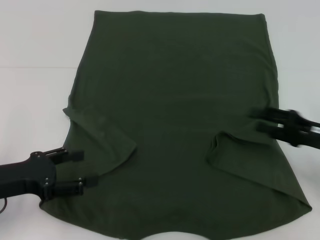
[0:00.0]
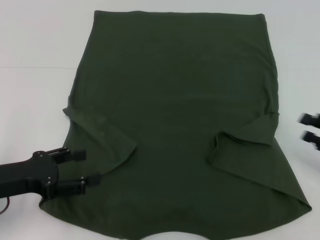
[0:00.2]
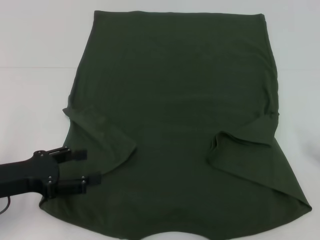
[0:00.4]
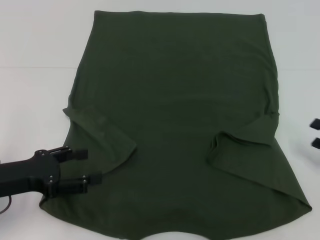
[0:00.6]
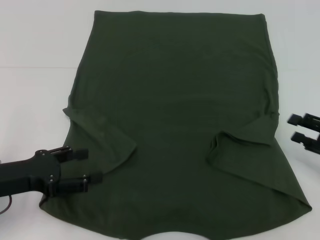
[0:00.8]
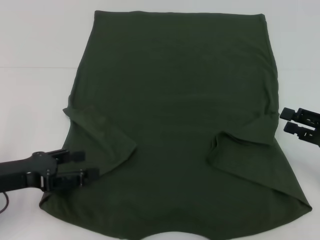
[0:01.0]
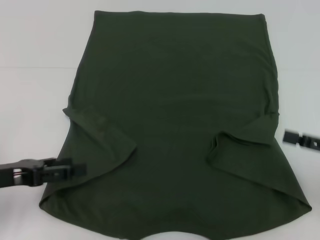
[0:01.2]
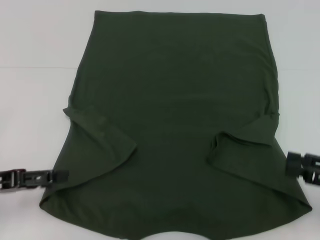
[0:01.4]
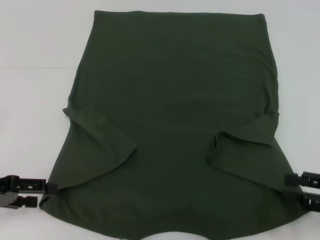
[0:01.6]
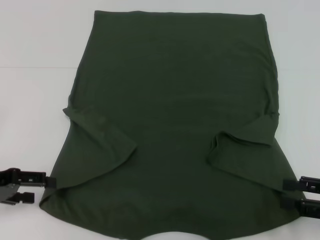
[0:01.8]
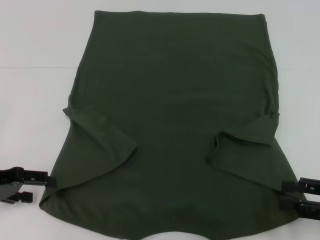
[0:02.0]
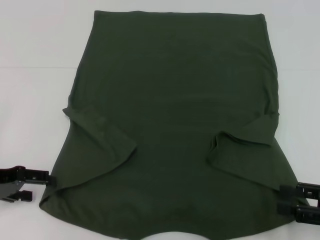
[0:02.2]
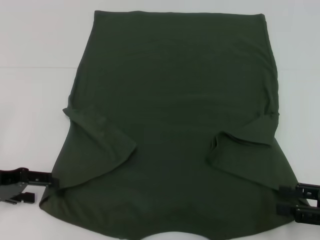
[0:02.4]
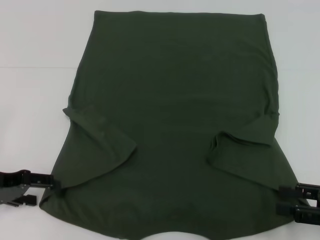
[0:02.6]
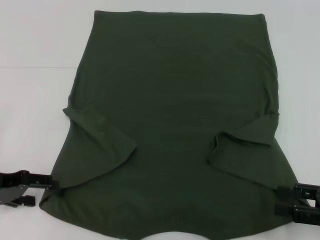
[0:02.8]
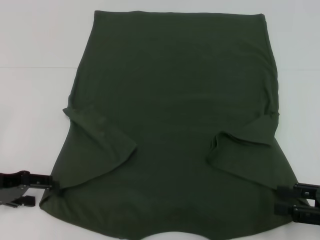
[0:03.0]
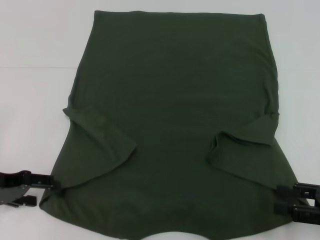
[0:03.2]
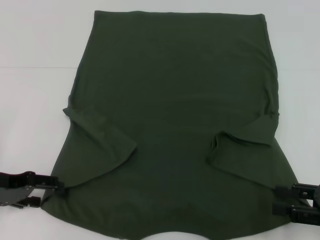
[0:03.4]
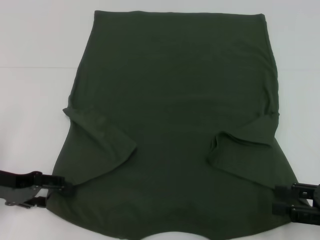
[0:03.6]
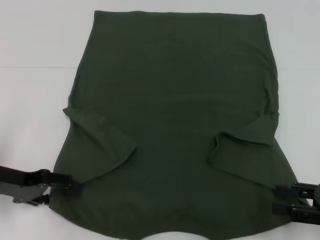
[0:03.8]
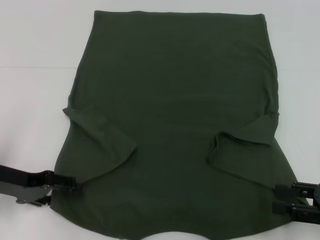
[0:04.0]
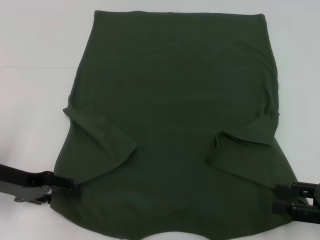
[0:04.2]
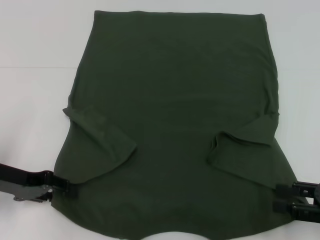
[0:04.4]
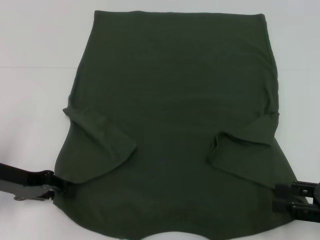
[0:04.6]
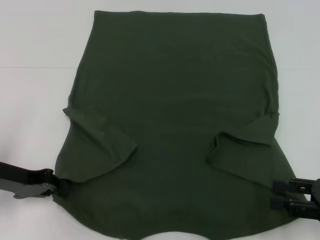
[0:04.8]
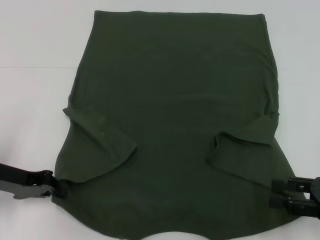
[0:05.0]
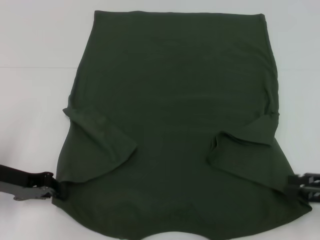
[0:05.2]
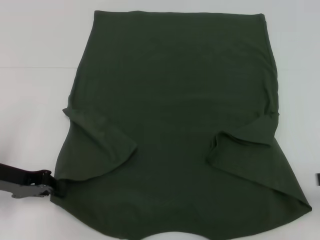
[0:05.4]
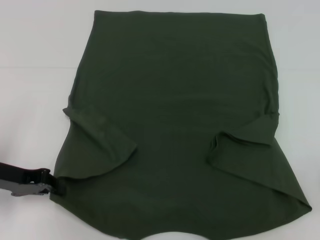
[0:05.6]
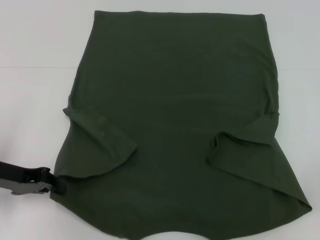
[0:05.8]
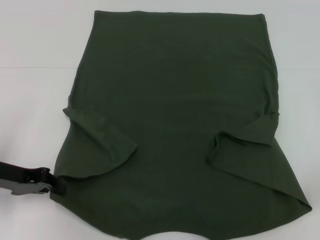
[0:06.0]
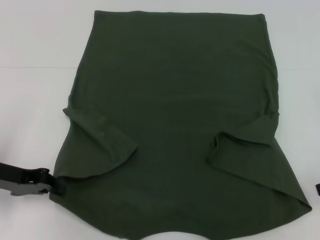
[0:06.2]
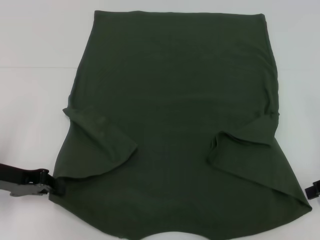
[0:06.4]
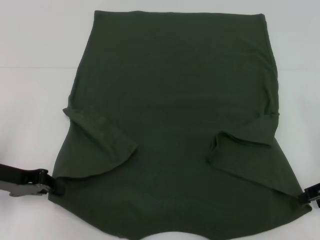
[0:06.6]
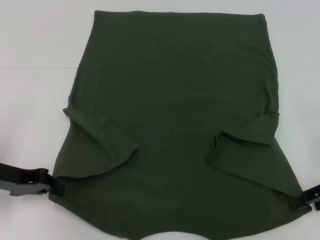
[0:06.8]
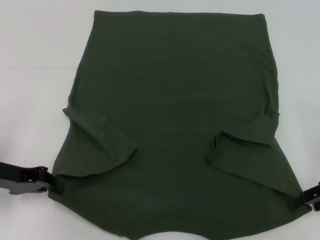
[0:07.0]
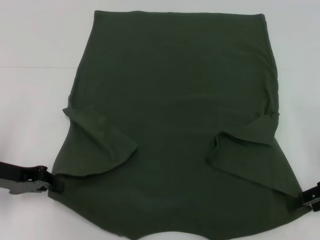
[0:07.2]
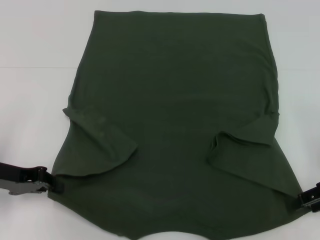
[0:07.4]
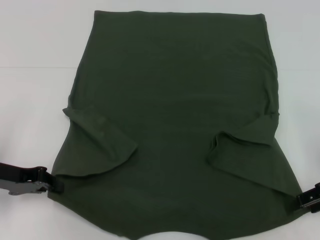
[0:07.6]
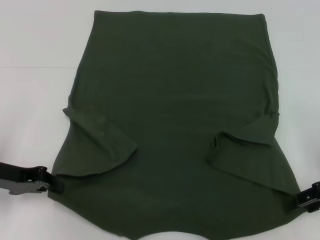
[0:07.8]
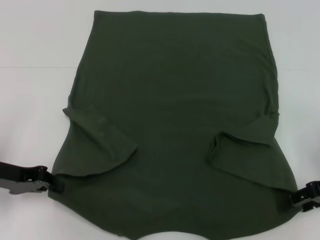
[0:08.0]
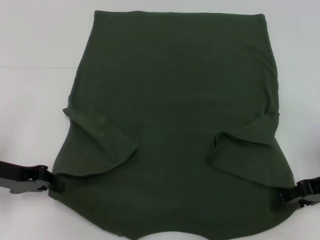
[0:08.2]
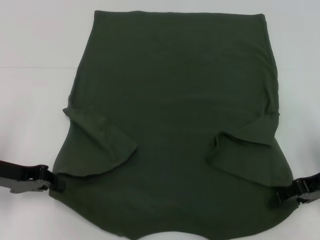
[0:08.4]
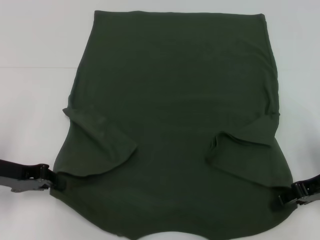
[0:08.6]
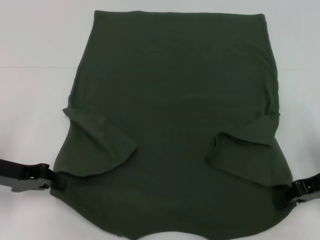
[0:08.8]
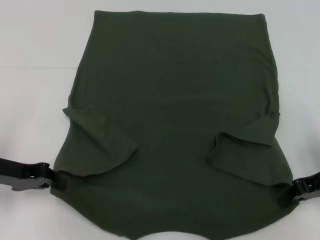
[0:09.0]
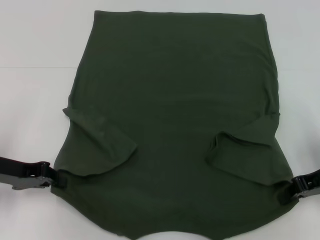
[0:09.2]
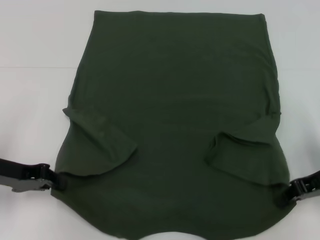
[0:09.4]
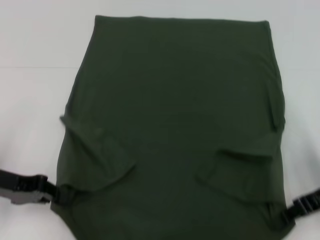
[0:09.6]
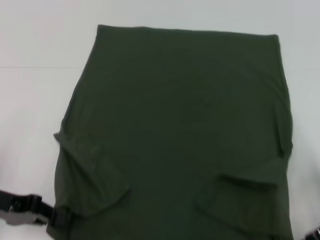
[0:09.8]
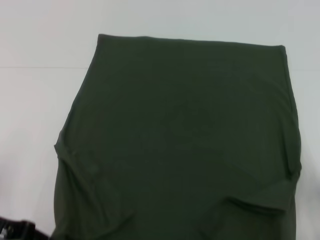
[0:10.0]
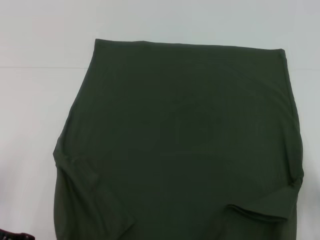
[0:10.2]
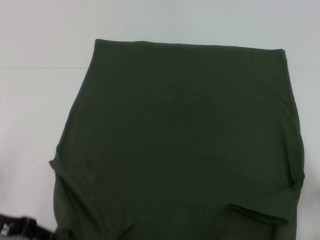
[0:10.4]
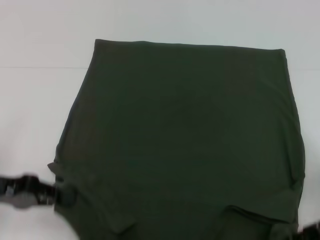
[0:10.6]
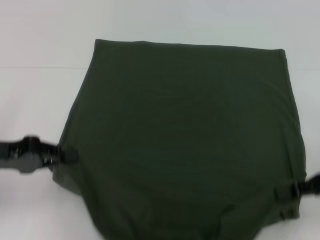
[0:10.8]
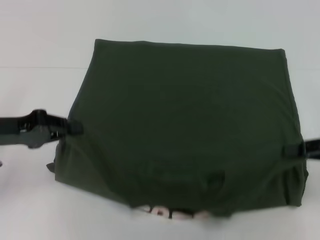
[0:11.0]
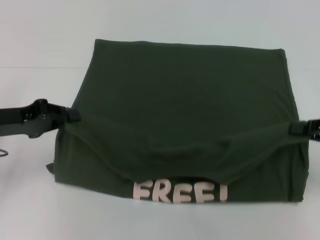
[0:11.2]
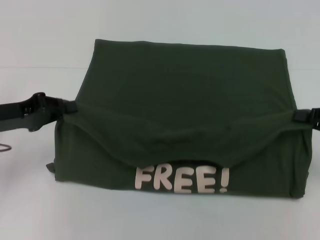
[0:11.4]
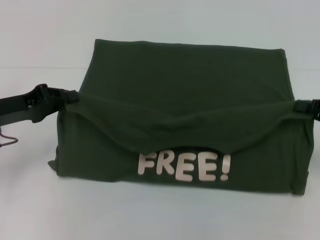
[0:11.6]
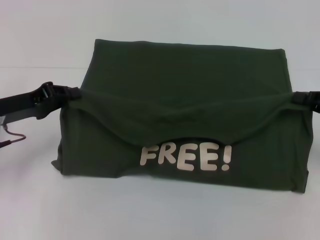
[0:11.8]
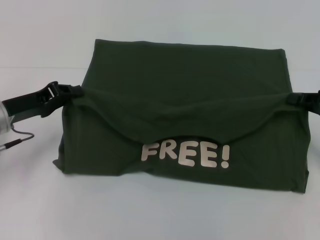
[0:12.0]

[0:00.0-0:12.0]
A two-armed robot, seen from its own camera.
Step, 0:00.0 to 0:05.8: Grab the bottom left corner with your left hand.
Step, 0:06.0 to 0:09.2: Grab the bottom right corner with your right hand.
0:00.0 to 0:01.6: The left gripper shifts by approximately 5 cm. Meanwhile the right gripper moves backward, roughly 10 cm.
0:01.6 to 0:03.0: The grippers stay close to where they were, moving slightly.
0:03.0 to 0:04.4: There are only small adjustments of the grippers.
0:04.4 to 0:06.0: The right gripper moves upward and forward, approximately 10 cm. The left gripper closes.
0:06.0 to 0:07.6: The right gripper goes approximately 5 cm downward.
0:07.6 to 0:09.0: The right gripper closes its fingers.
0:09.0 to 0:10.4: The grippers both shift backward by about 5 cm.
0:10.4 to 0:12.0: The right gripper moves forward and to the right, some 10 cm. The left gripper shifts about 10 cm forward.

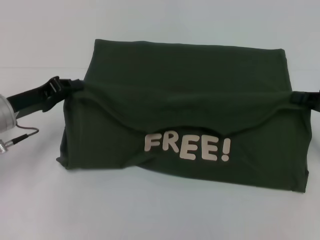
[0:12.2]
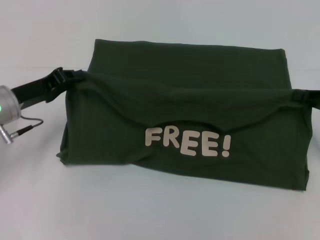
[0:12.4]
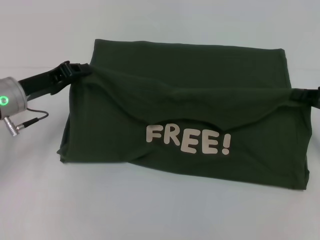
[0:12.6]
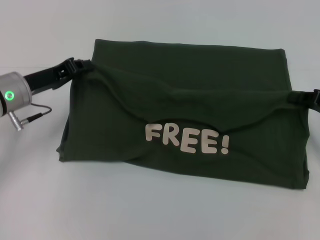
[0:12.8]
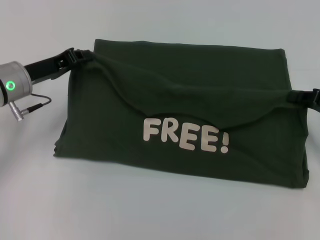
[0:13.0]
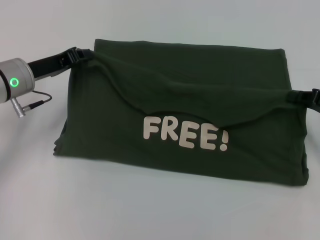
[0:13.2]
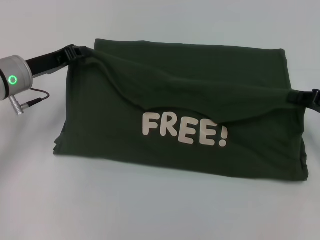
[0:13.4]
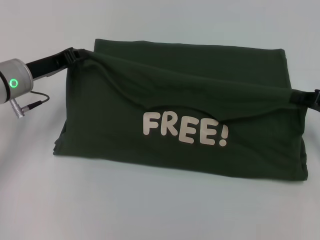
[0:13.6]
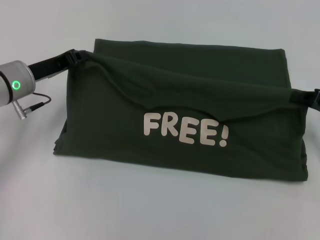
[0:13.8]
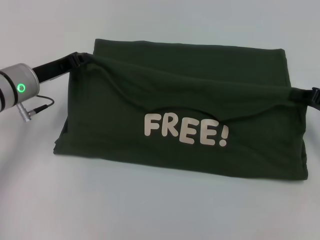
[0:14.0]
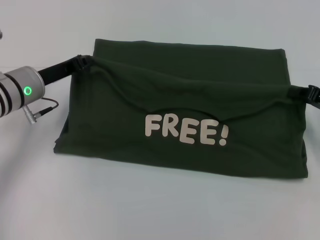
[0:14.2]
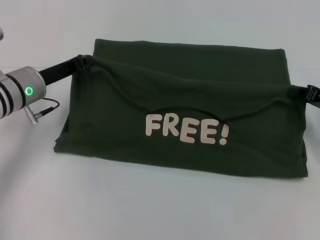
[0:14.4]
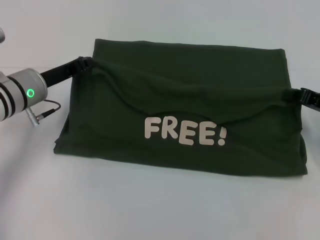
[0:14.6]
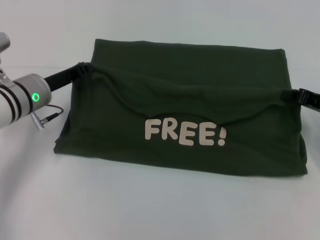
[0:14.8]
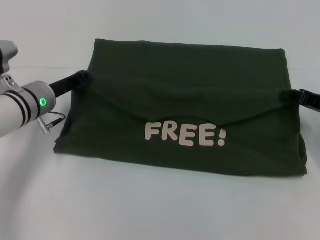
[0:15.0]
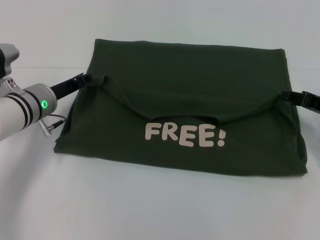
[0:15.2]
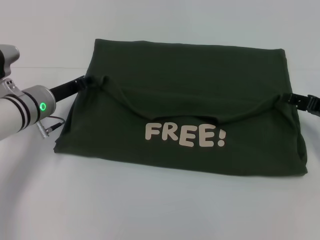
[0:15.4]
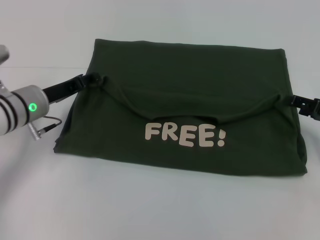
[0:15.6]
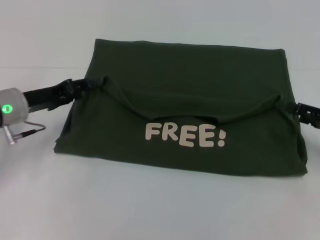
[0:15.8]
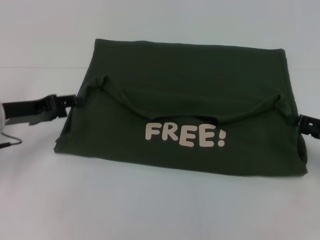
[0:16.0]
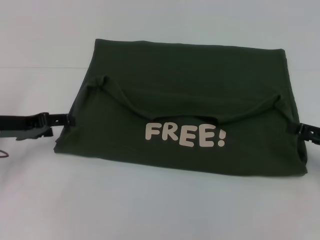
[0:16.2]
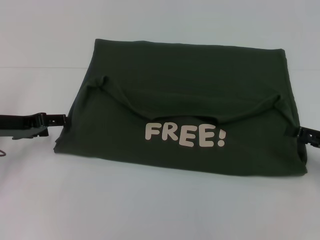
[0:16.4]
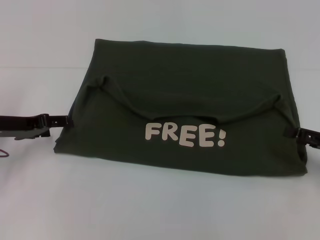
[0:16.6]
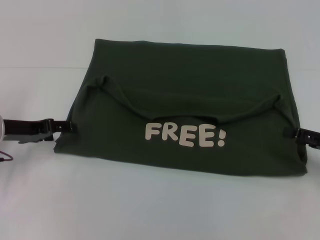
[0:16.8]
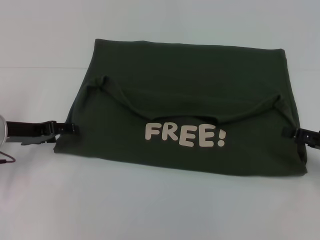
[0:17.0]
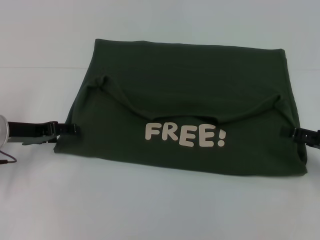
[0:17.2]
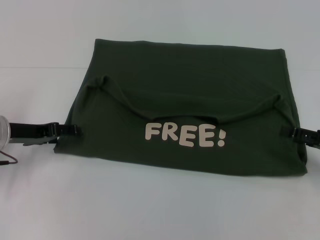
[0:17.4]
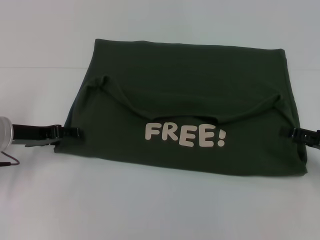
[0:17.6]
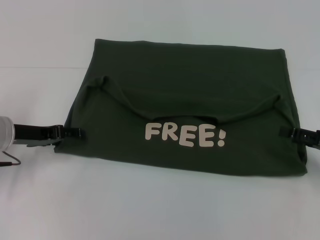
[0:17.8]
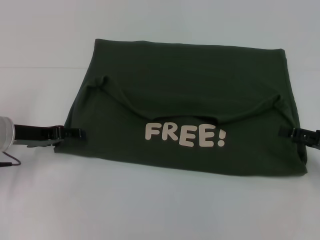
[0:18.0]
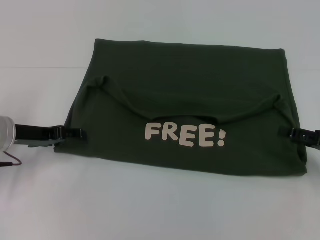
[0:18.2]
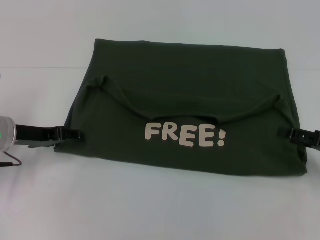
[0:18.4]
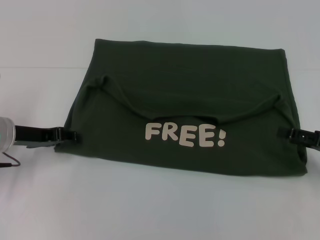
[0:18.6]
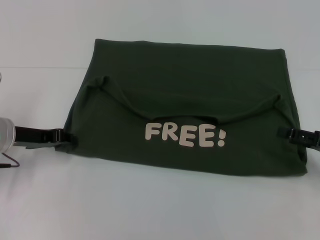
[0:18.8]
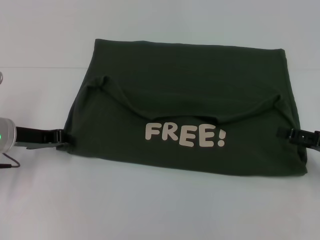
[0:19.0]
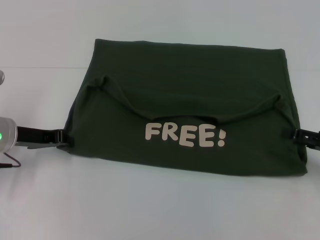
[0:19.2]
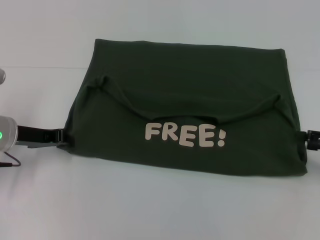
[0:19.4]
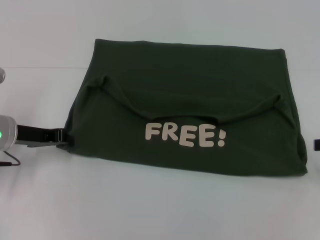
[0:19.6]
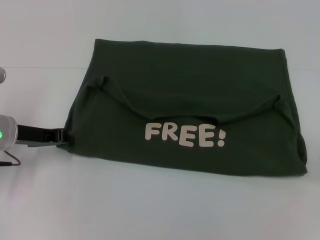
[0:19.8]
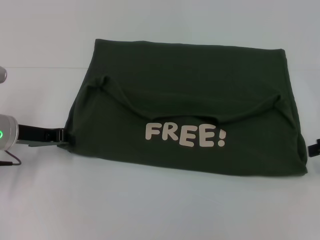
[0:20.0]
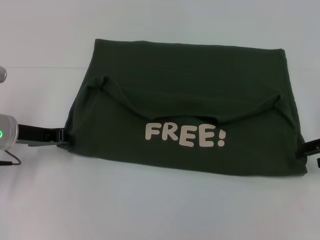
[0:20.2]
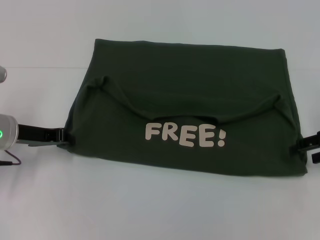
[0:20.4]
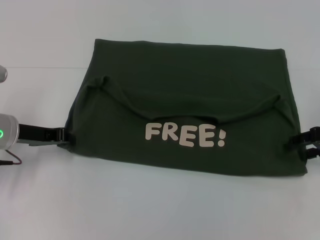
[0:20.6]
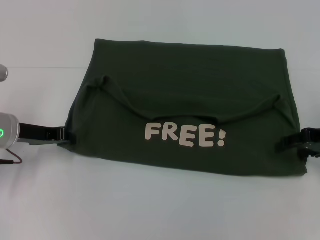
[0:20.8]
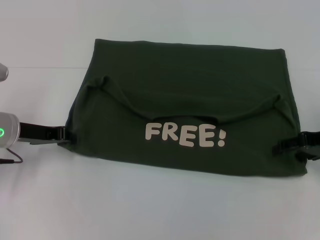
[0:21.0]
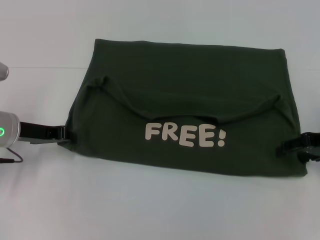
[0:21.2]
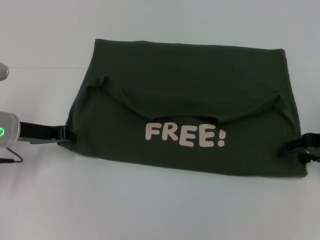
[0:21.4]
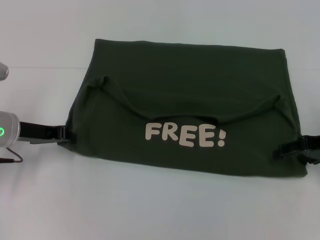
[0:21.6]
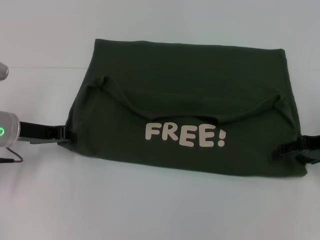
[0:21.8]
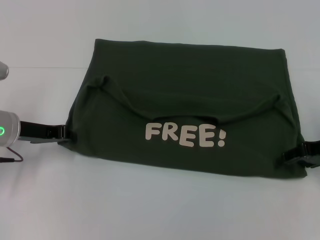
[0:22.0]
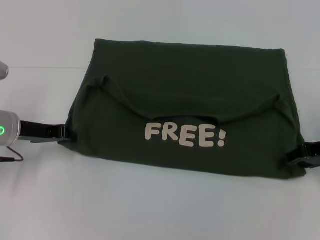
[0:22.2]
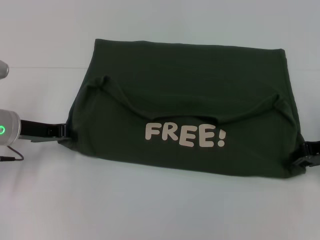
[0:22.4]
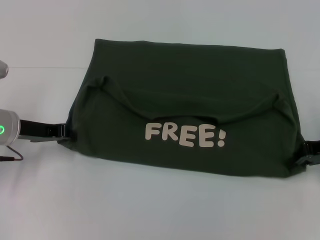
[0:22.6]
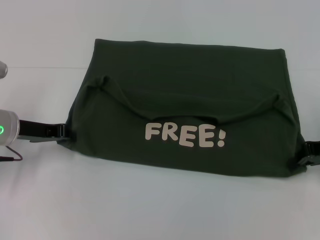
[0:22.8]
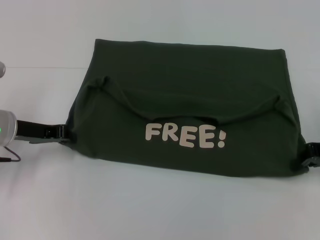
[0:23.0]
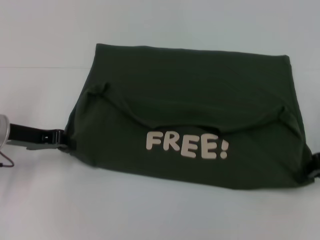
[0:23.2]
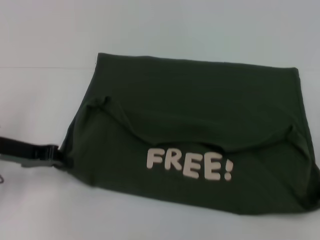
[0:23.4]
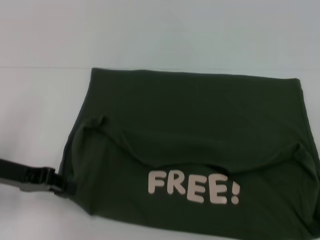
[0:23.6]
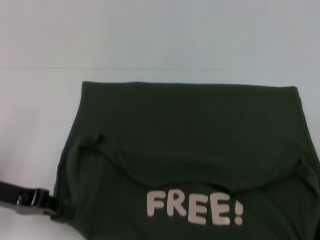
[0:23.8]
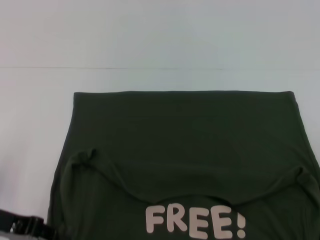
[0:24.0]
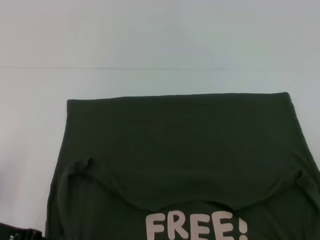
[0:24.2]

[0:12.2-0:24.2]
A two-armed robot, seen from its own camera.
Step, 0:12.2 to 0:15.6: Fold the clothes with your left hand.
Step, 0:12.2 to 0:15.6: Fold the clothes with your right hand.
0:12.2 to 0:13.8: The left gripper moves about 5 cm.
0:13.8 to 0:15.2: The left gripper ends up roughly 5 cm from where it was.
0:15.2 to 0:16.6: The right gripper goes some 5 cm backward, and opens its fingers, while the left gripper heads to the left, covering approximately 10 cm, and opens its fingers.
0:16.6 to 0:18.2: There are only small adjustments of the grippers.
0:18.2 to 0:19.8: The right gripper is displaced upward by roughly 10 cm, while the left gripper closes up.
0:19.8 to 0:21.2: The right gripper shifts approximately 5 cm to the left.
0:21.2 to 0:22.6: The right gripper closes.
0:22.6 to 0:24.2: The two grippers go approximately 10 cm backward.
